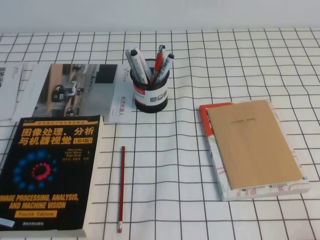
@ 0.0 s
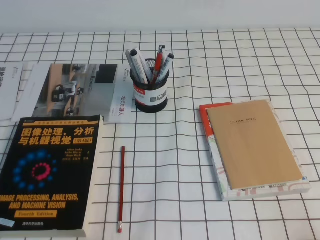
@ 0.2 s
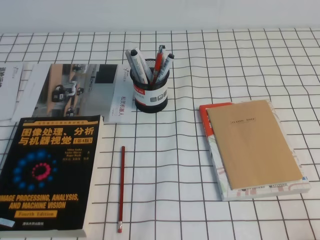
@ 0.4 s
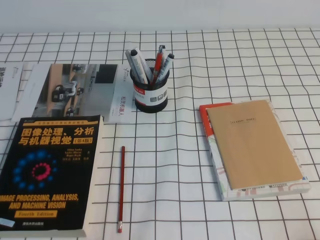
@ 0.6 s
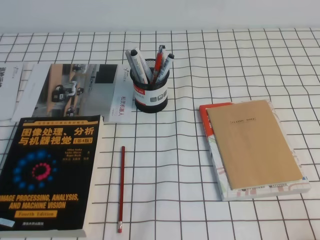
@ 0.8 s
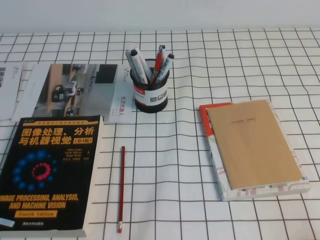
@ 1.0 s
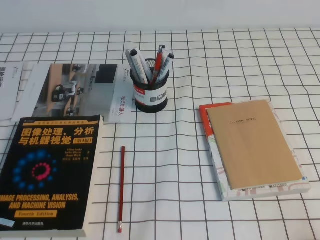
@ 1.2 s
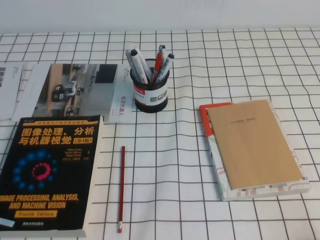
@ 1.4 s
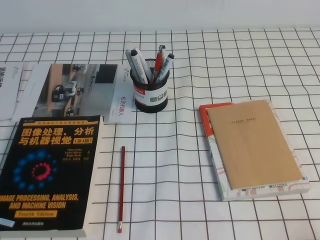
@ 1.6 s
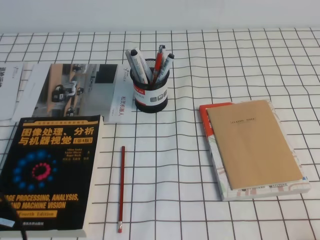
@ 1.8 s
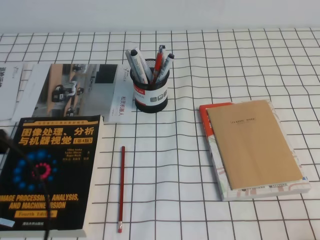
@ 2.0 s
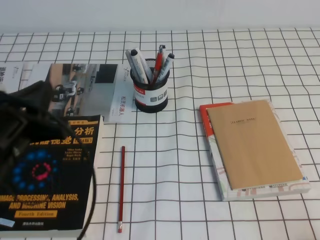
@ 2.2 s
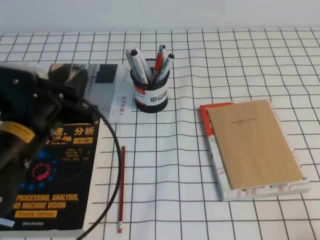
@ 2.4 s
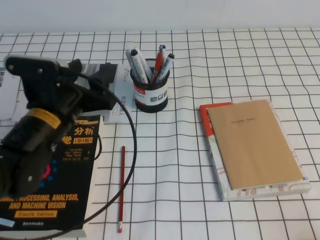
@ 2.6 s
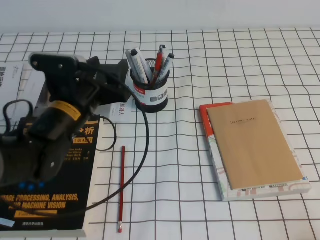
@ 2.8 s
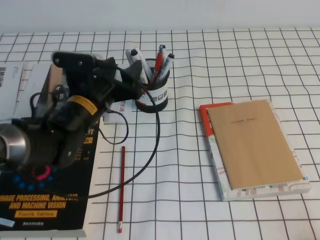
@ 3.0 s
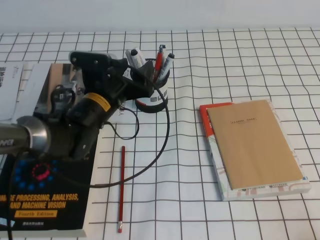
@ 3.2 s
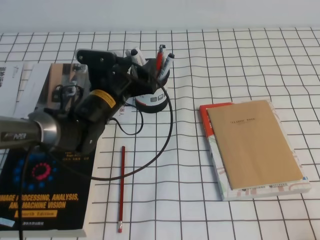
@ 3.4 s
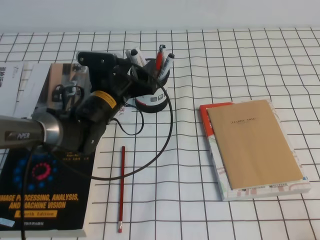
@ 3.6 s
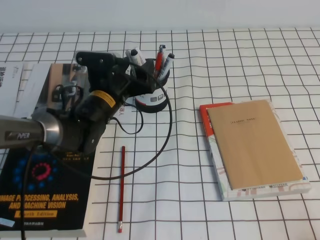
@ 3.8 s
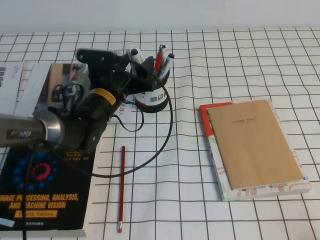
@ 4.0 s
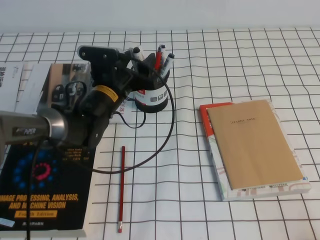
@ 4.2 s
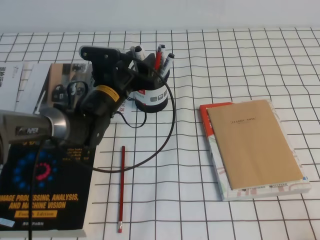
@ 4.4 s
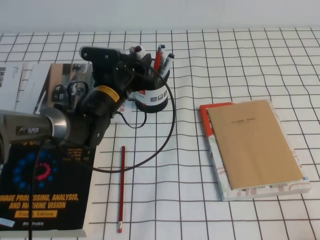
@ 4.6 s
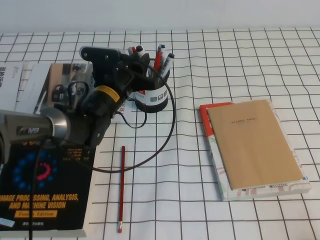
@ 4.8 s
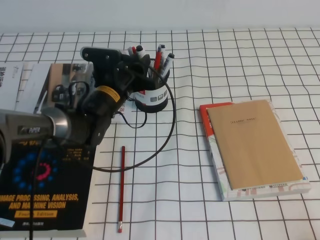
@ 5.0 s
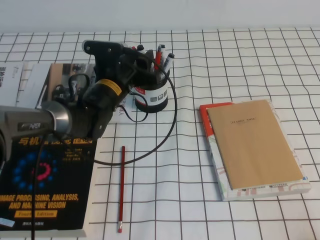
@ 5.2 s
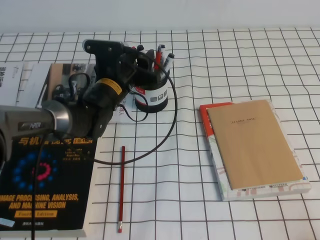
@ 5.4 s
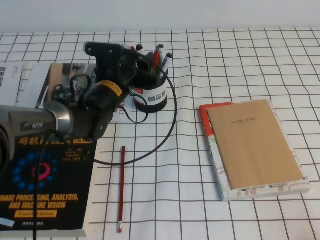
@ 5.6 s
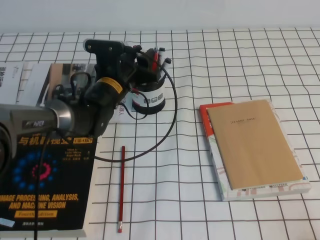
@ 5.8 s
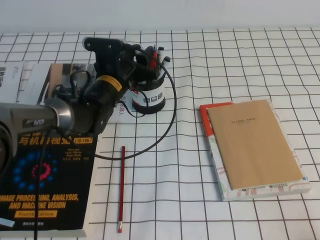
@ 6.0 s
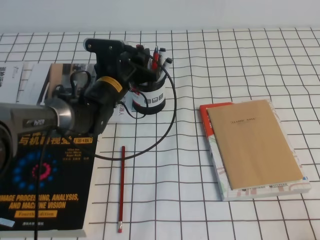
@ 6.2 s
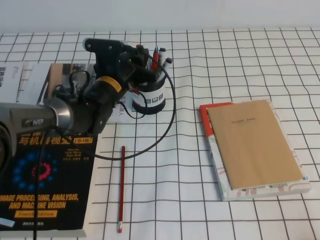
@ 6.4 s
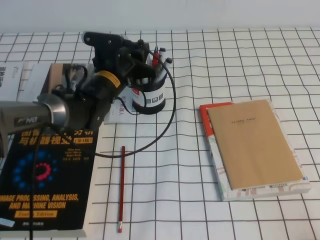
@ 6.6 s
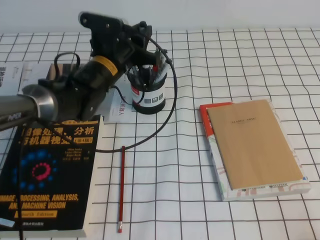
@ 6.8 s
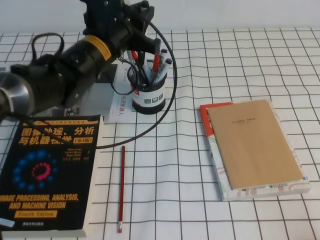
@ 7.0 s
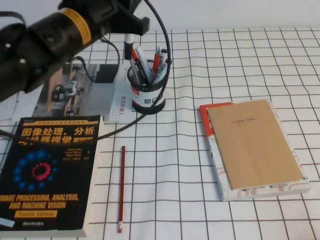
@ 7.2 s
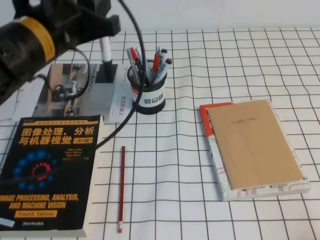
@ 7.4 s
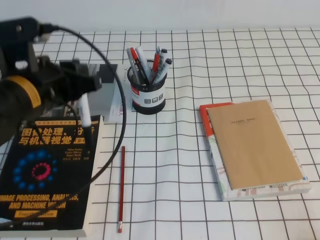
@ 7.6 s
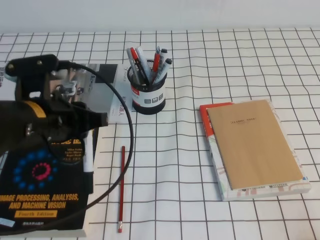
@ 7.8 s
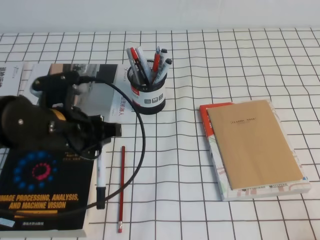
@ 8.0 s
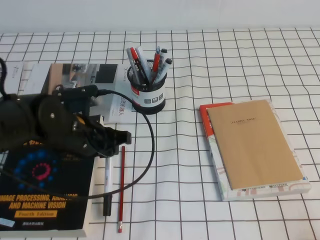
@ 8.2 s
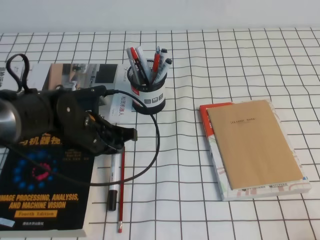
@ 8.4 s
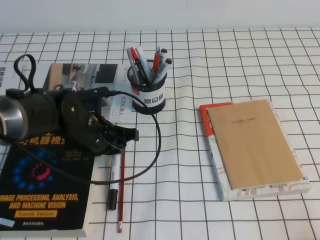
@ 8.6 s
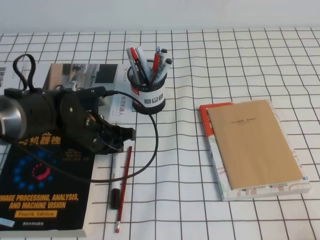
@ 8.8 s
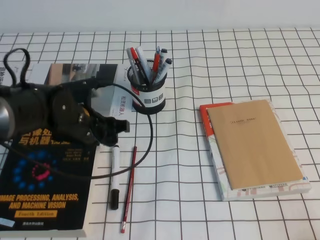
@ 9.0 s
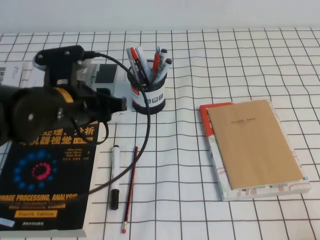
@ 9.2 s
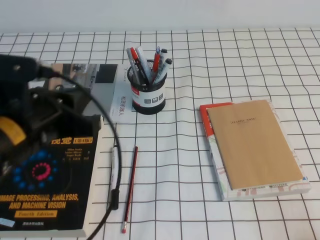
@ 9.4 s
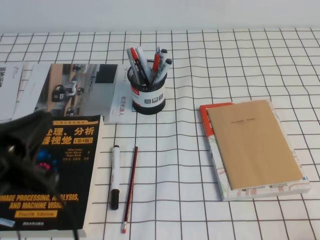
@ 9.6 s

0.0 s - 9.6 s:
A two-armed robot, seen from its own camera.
1.6 s - 3.2 s: The left gripper moves forward and to the right, about 35 cm, and opens up.
3.2 s - 4.8 s: The left gripper moves roughly 5 cm, and closes.
4.8 s - 6.4 s: The grippers make only small movements.
6.4 s - 8.0 s: The left gripper heads backward, to the left and upward, covering some 20 cm.
8.0 s - 9.6 s: The left gripper goes some 15 cm backward, upward and to the left.
